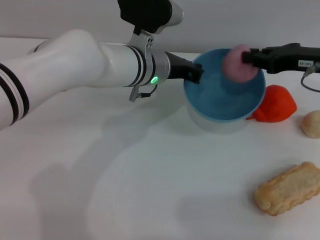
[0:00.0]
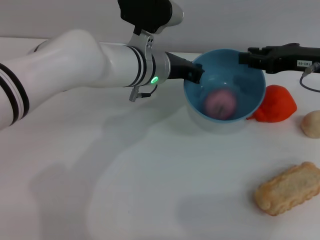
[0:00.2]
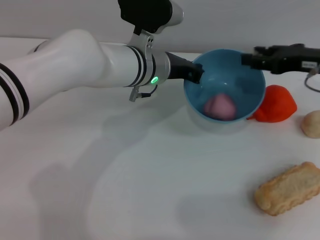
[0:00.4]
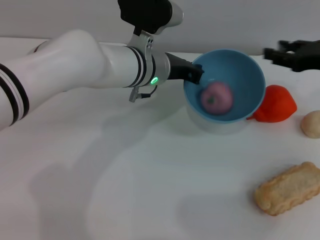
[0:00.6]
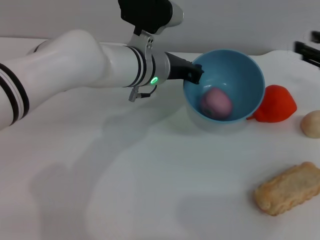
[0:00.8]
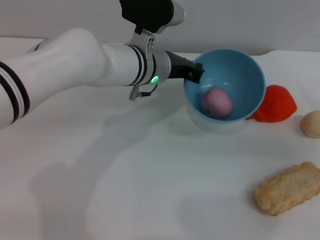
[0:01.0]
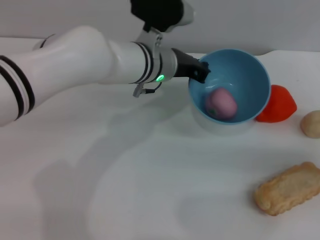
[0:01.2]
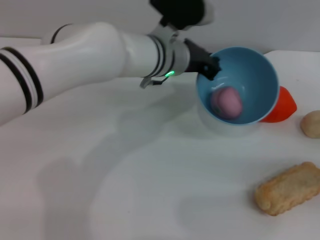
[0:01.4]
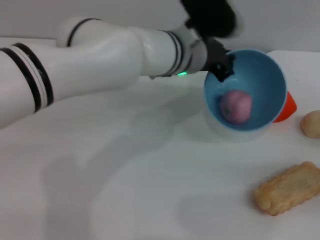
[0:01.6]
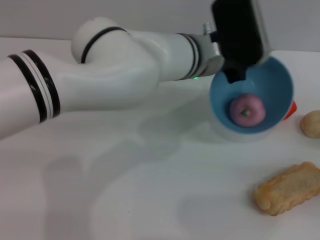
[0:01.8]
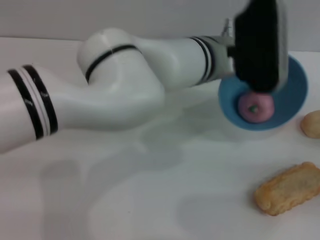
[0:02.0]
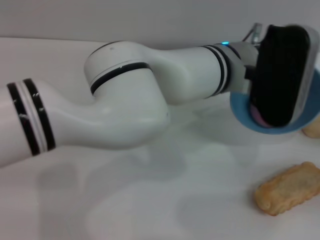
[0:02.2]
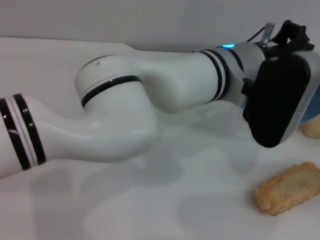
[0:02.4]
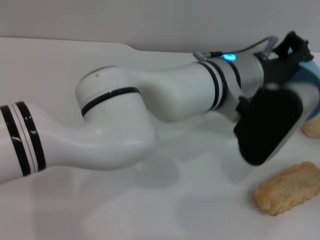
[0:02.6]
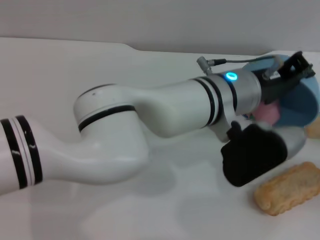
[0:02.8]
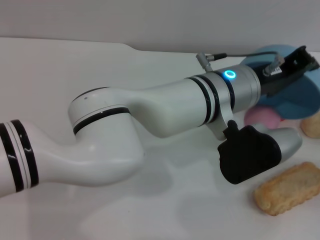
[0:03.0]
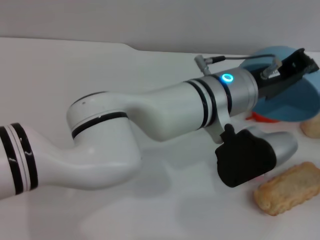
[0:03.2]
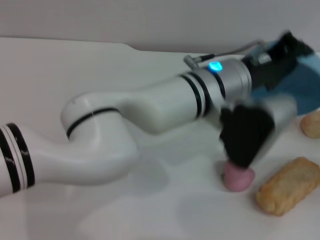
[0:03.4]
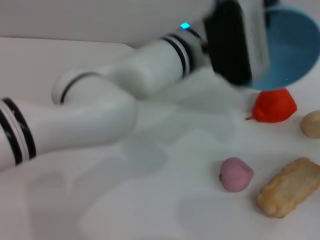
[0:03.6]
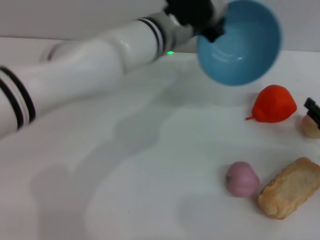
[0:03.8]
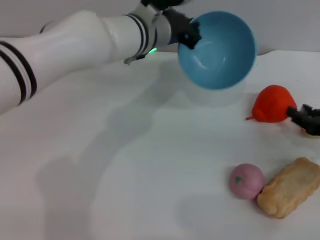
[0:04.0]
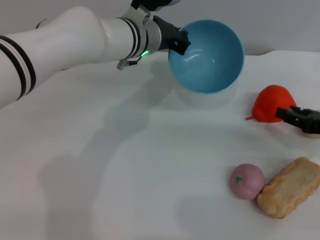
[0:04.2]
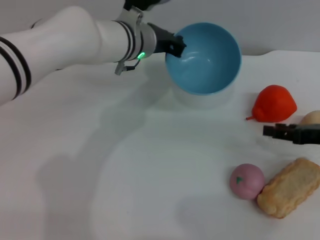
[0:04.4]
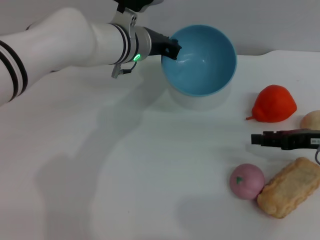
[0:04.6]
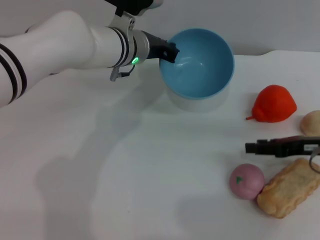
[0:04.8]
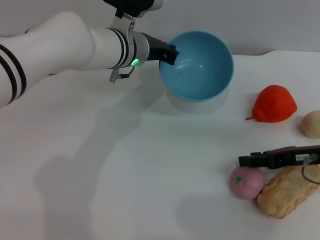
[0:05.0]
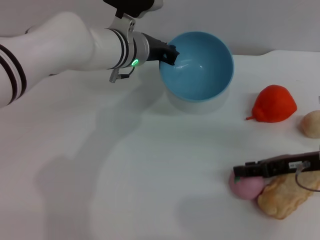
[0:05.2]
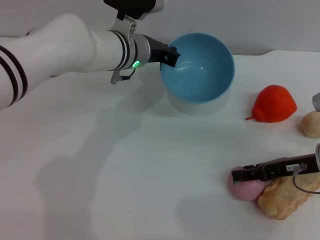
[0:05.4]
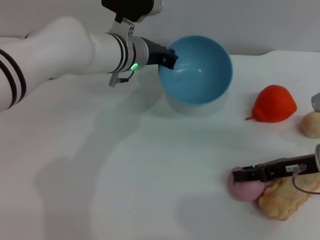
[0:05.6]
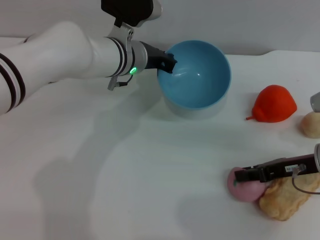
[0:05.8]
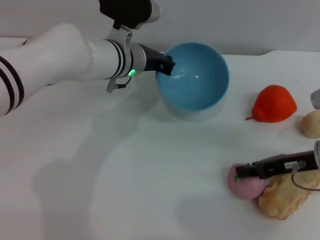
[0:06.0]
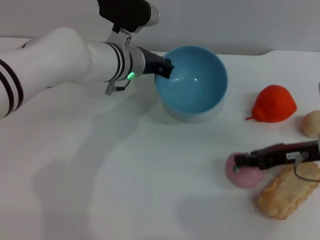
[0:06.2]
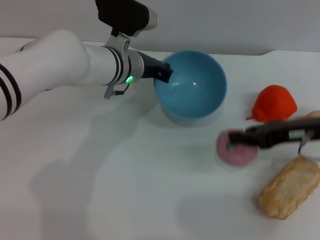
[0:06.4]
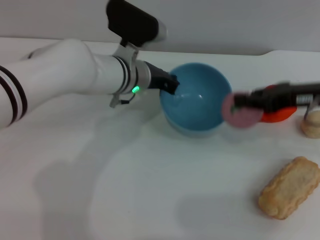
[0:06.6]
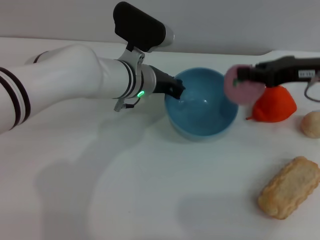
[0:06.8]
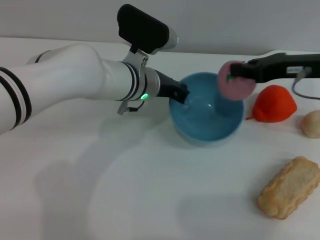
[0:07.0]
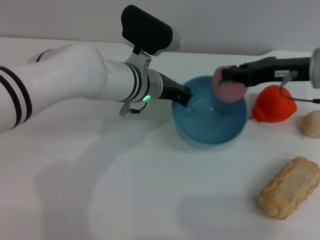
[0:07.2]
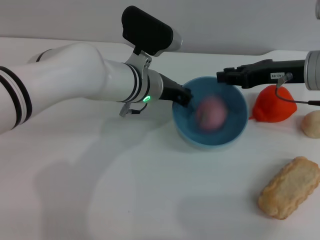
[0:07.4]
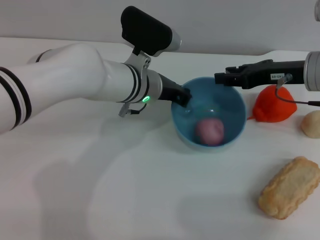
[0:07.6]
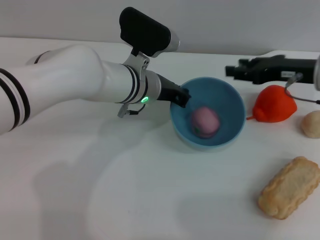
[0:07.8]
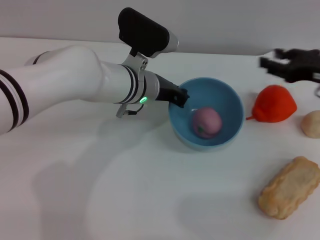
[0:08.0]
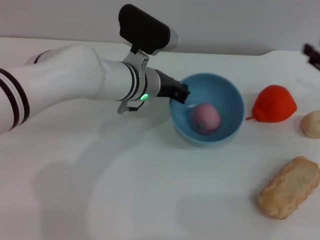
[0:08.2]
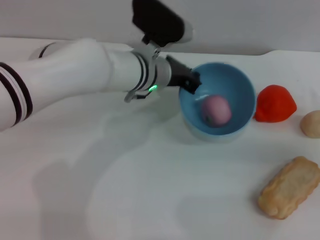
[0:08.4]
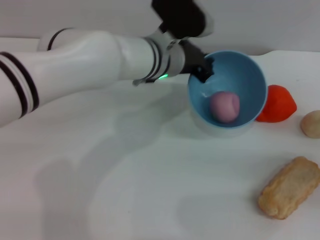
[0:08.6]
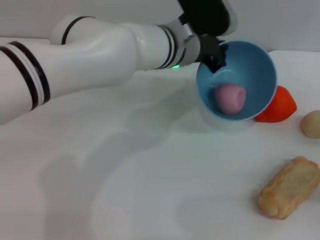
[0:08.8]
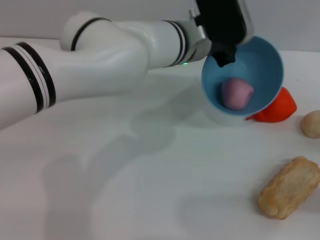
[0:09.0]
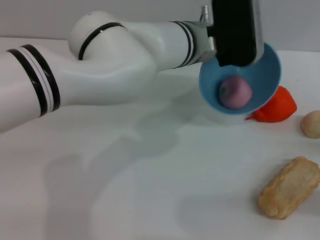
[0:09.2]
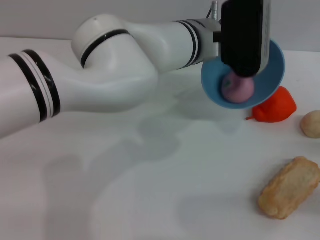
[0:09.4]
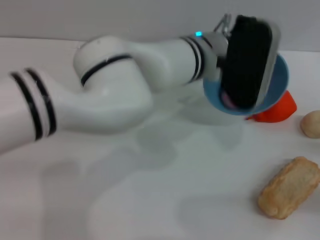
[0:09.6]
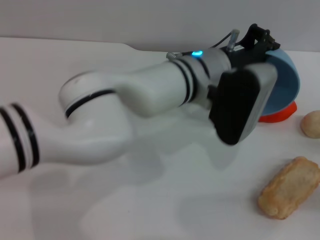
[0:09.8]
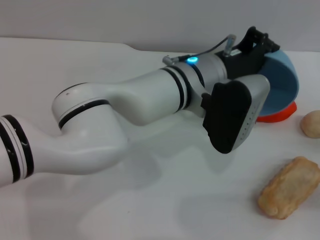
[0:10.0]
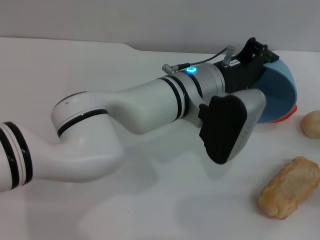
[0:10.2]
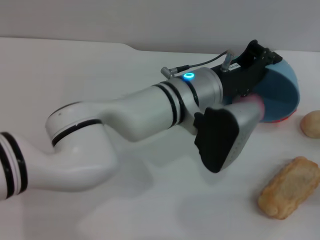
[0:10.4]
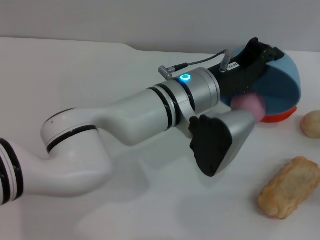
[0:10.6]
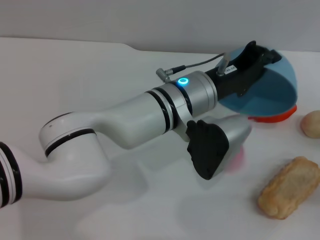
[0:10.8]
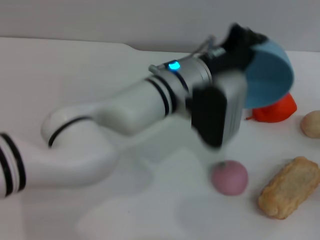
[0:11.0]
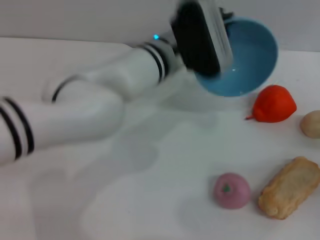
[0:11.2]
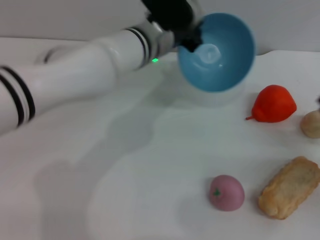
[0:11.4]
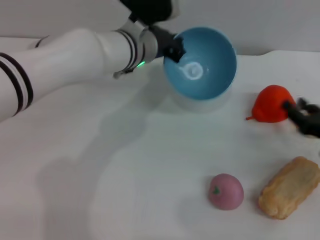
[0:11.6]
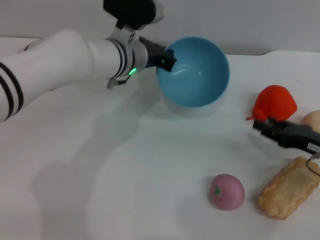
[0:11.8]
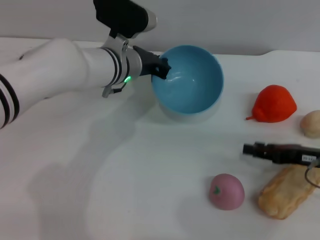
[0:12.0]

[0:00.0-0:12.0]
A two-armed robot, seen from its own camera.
Task of the whole recording: put the peach into the blue bowl and pour it out repeatedly.
Step, 0:00.2 to 0:03.2: Pour the peach out of bowl.
Step, 0:03.4 to 0:06.2: Pick up the peach with the right gripper.
Step, 0:06.6 to 0:07.4: Place the peach into the bowl.
Step, 0:07.6 to 0:11.0: Pour the peach out of bowl.
0:00.0 to 0:01.6: The left gripper shifts by some 5 cm; the right gripper shifts about 20 cm to the right, backward and downward, and opens.
0:01.6 to 0:03.0: The left gripper goes about 10 cm backward.
0:03.0 to 0:04.4: The right gripper shifts about 5 cm to the left; the left gripper is displaced forward and to the left by approximately 15 cm.
0:04.4 to 0:06.0: The right gripper travels to the left by some 5 cm, and closes its fingers.
0:06.0 to 0:07.6: The right gripper travels upward and forward by about 10 cm, and closes, then opens again.
0:07.6 to 0:09.0: The right gripper heads backward, to the right and downward, covering some 25 cm, and opens. The left gripper heads upward and to the right, covering some 10 cm.
0:09.0 to 0:10.4: The left gripper heads backward, covering roughly 5 cm.
0:10.4 to 0:12.0: Both grippers move to the left and forward, approximately 10 cm.

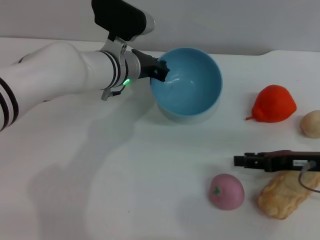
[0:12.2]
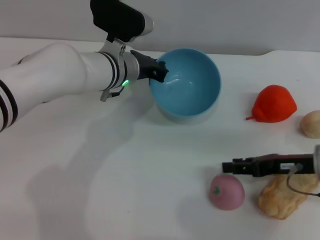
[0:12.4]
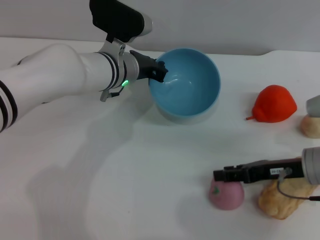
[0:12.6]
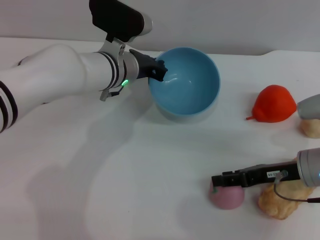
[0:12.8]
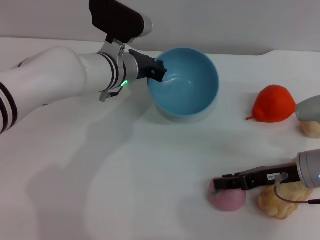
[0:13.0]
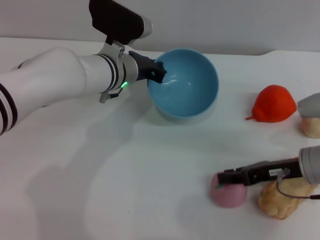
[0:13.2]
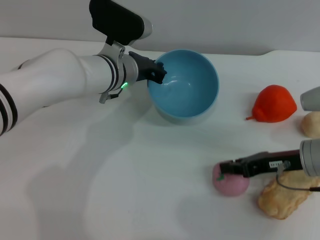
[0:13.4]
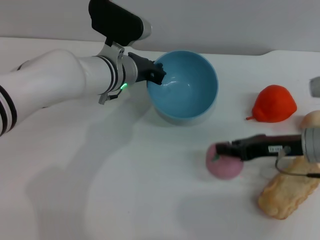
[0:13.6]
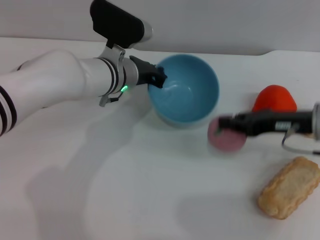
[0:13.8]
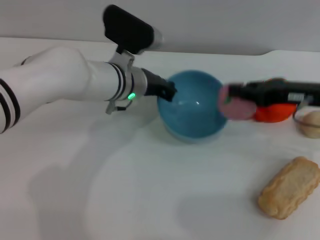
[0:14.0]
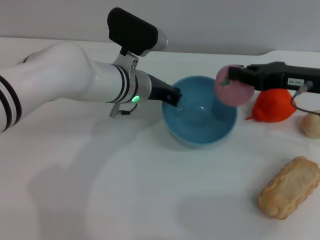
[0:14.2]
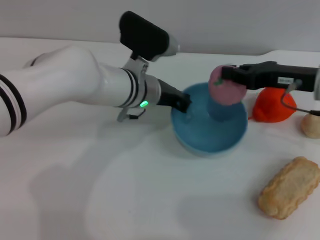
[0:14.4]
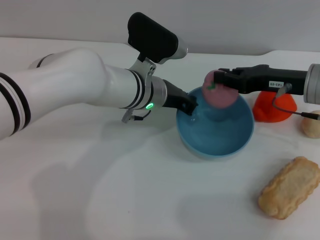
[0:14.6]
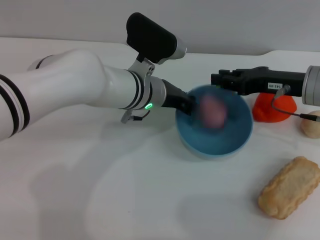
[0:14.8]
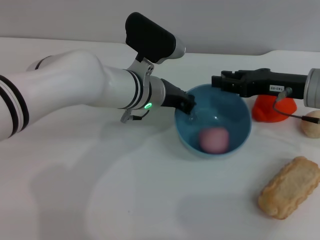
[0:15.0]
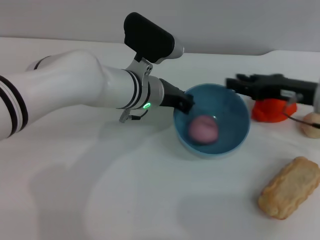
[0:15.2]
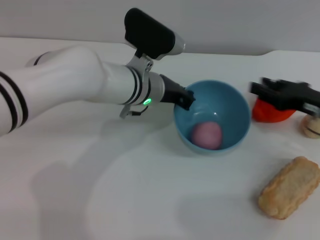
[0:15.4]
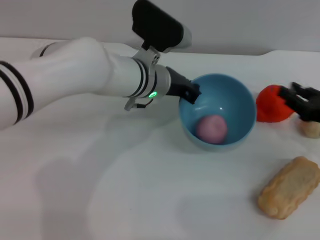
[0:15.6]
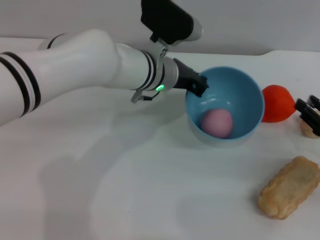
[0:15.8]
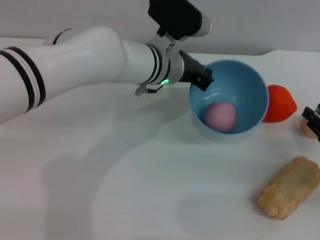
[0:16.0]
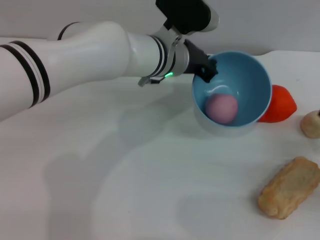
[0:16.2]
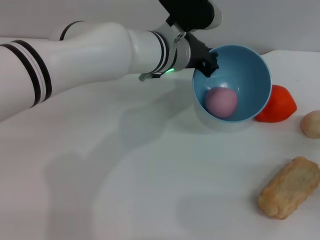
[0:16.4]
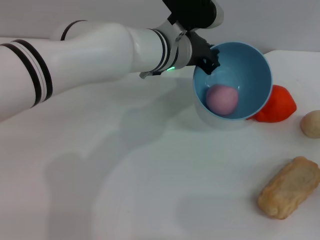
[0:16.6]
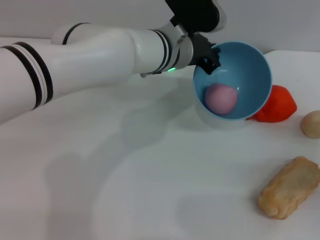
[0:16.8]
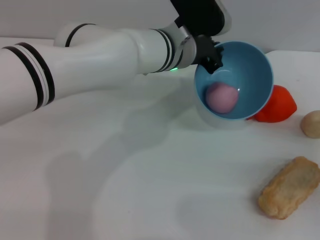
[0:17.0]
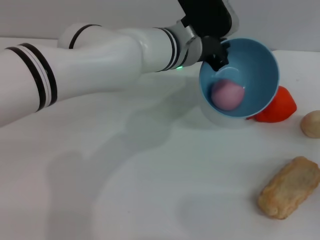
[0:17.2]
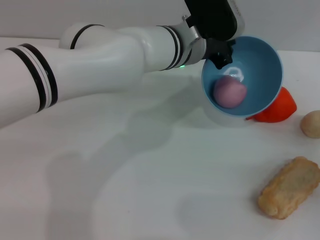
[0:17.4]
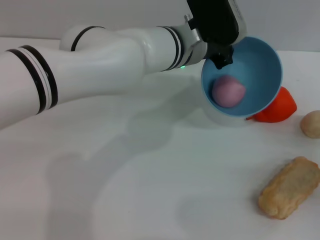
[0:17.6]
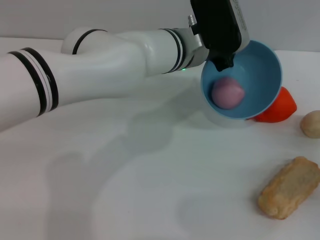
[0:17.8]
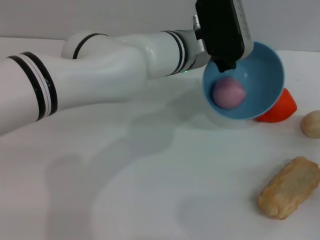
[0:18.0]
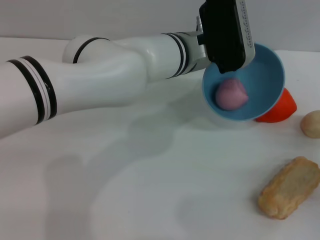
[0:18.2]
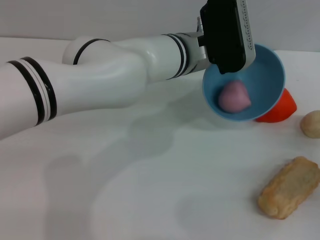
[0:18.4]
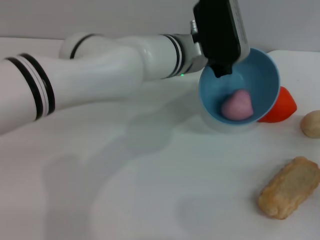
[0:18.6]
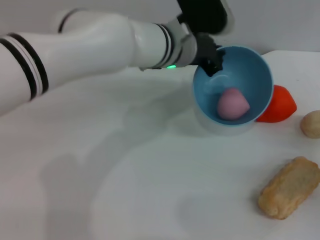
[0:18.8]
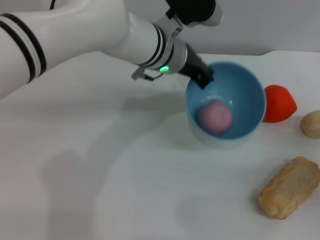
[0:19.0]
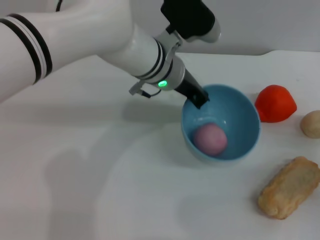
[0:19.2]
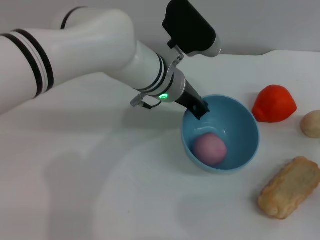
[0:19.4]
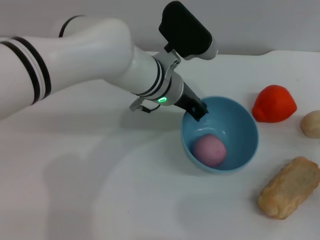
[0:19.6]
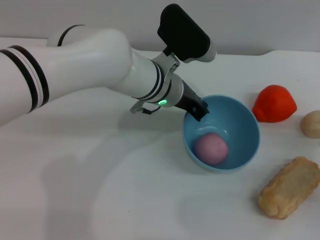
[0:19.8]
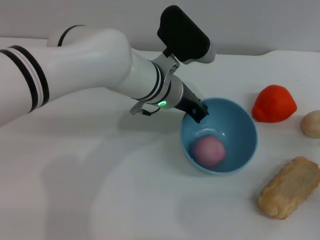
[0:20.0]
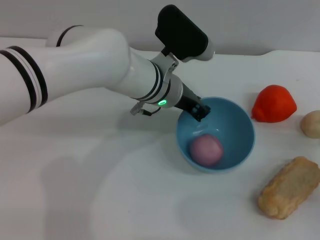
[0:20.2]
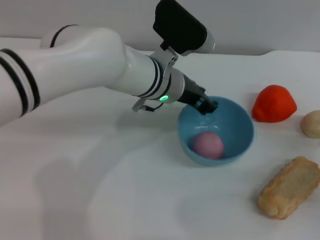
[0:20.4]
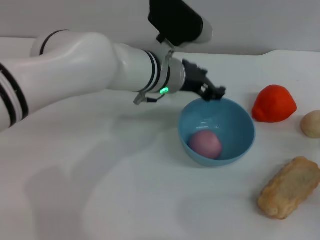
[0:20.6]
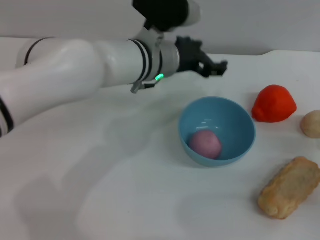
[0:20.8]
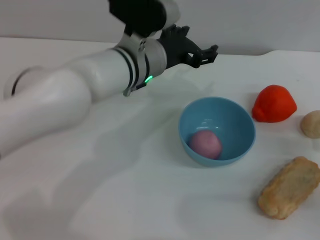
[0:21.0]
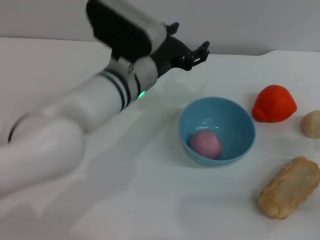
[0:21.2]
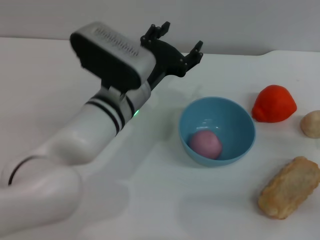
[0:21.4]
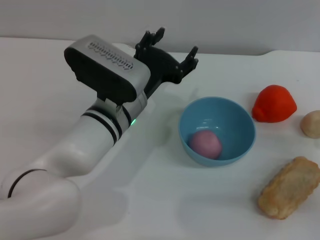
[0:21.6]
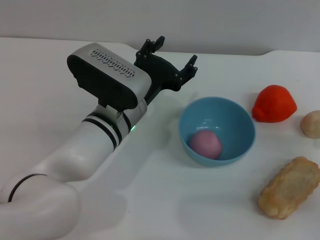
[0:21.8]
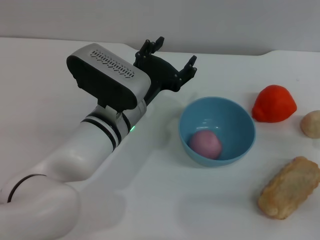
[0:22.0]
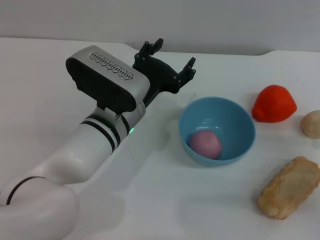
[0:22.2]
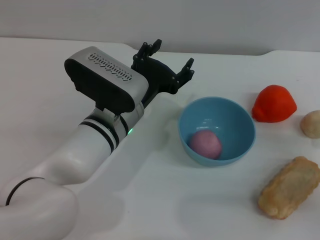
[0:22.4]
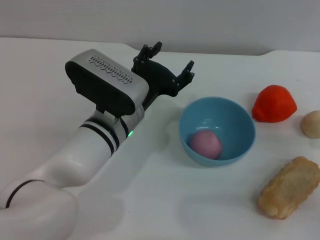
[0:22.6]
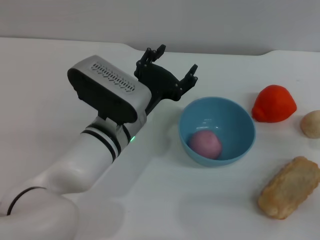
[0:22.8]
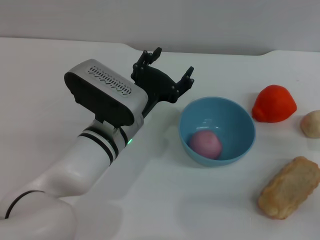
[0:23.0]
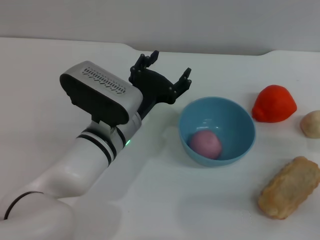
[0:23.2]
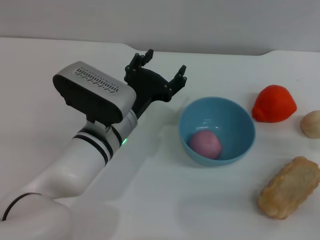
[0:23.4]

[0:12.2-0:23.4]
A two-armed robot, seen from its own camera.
Task of the whole recording: put the peach into the blue bowl and pour it out repeatedly.
Step, 0:12.2 to 0:13.6: Pick up the peach with the right gripper.
Step, 0:13.8 to 0:15.0: Place the peach into the bowl.
Step, 0:15.2 to 0:20.6: Place the bowl on the table.
0:12.2 to 0:13.8: The right gripper changes place by roughly 5 cm, and closes up.
0:13.8 to 0:15.4: The right gripper opens its fingers.
0:15.4 to 0:17.0: The right gripper shifts some 10 cm backward, to the right and downward. The left gripper moves about 5 cm.
0:20.2 to 0:21.8: The left gripper is displaced backward by about 10 cm, and opens up.
0:21.8 to 0:23.4: The grippers stay close to where they were, moving slightly.
